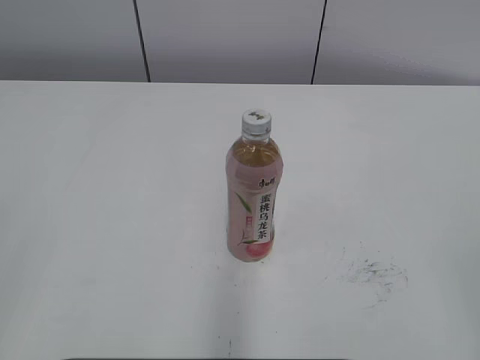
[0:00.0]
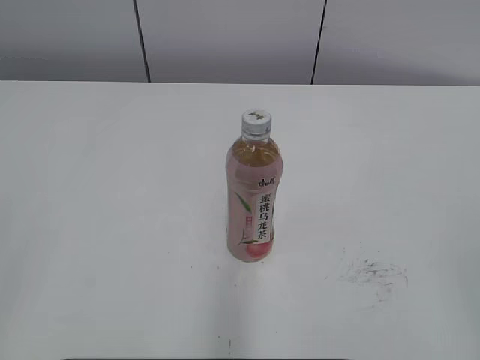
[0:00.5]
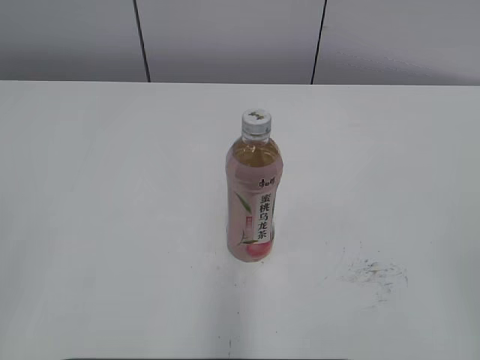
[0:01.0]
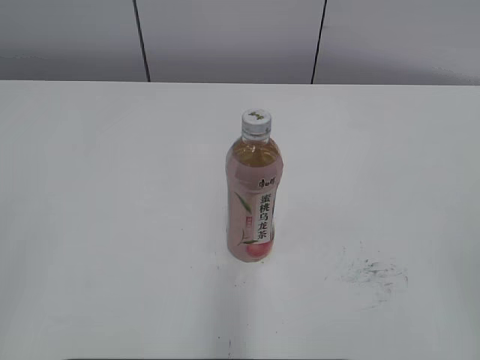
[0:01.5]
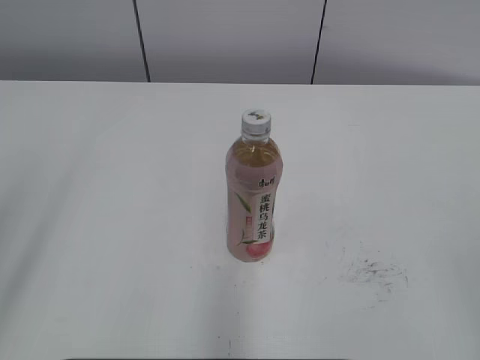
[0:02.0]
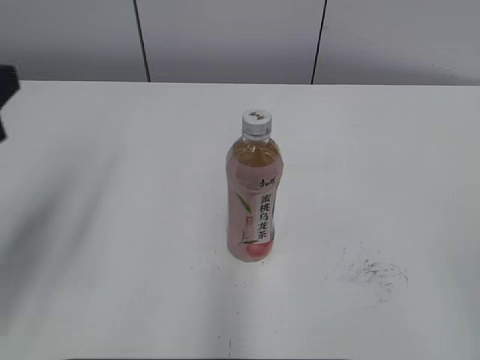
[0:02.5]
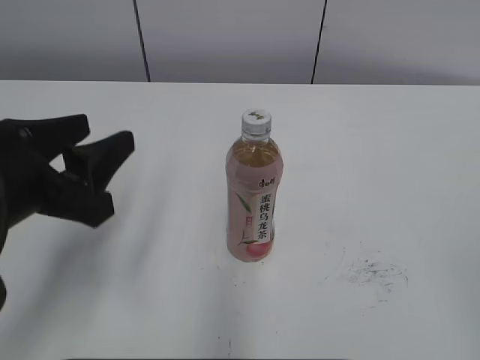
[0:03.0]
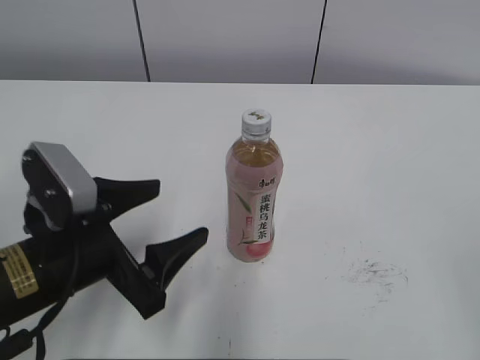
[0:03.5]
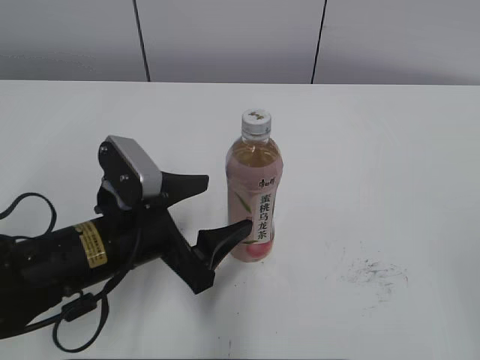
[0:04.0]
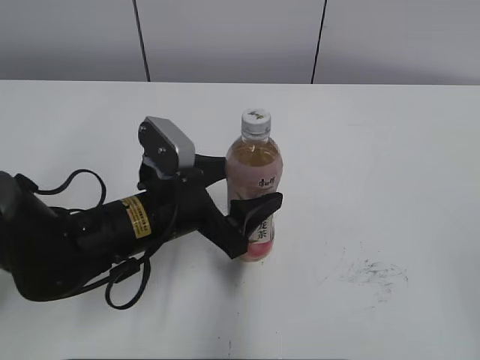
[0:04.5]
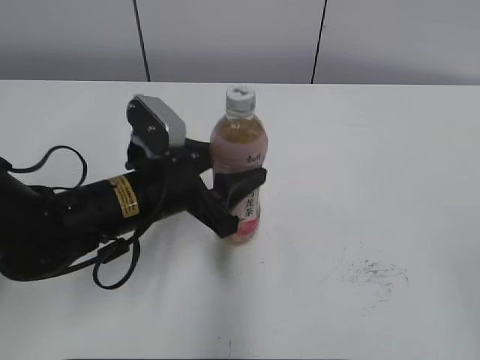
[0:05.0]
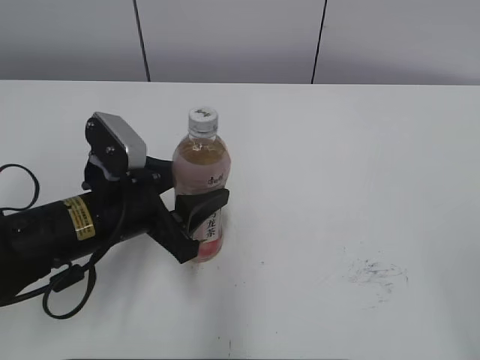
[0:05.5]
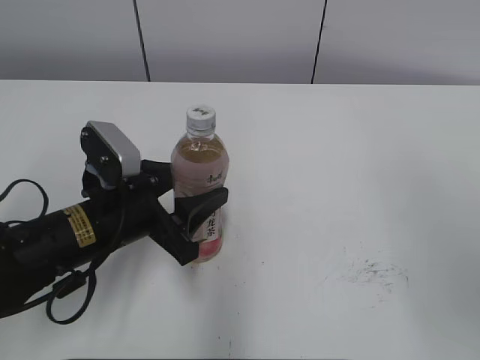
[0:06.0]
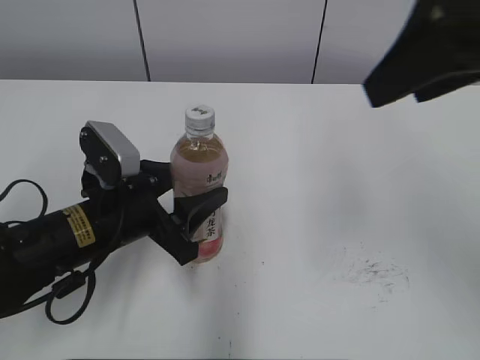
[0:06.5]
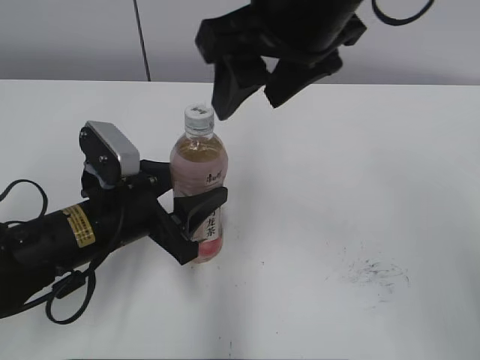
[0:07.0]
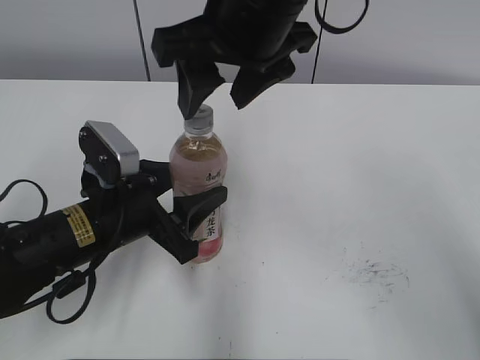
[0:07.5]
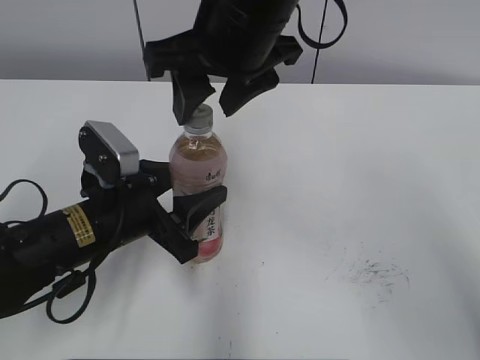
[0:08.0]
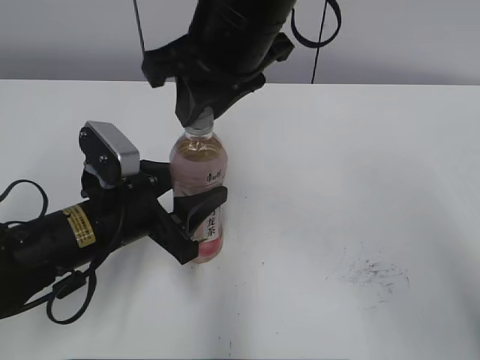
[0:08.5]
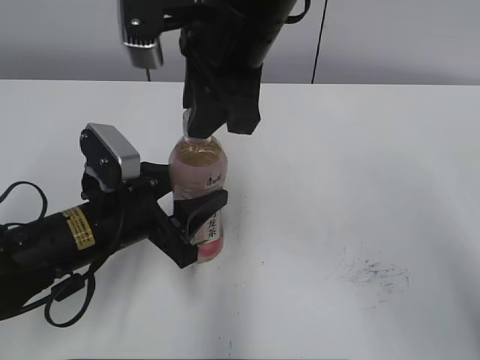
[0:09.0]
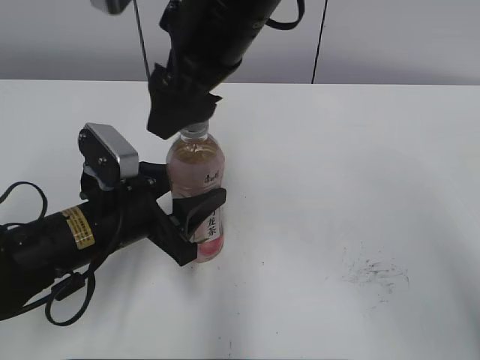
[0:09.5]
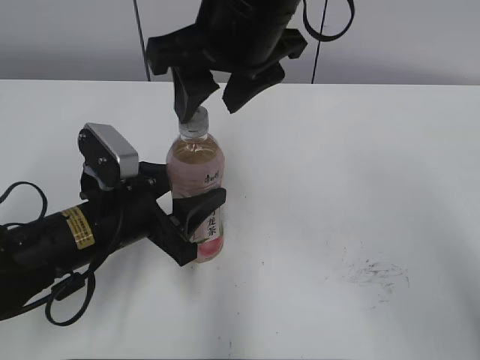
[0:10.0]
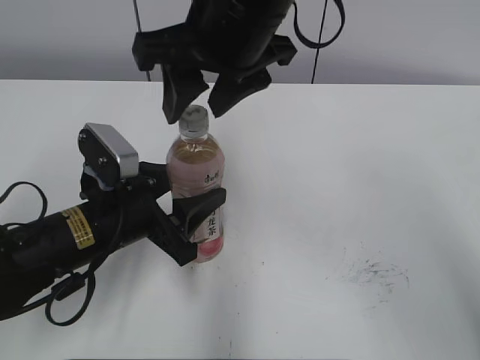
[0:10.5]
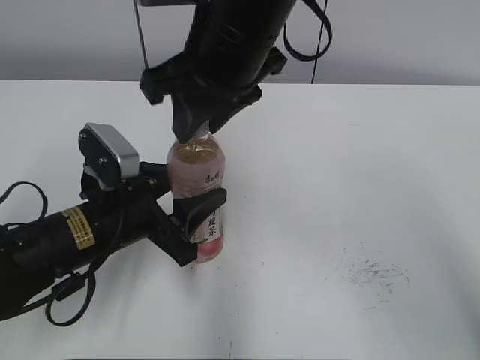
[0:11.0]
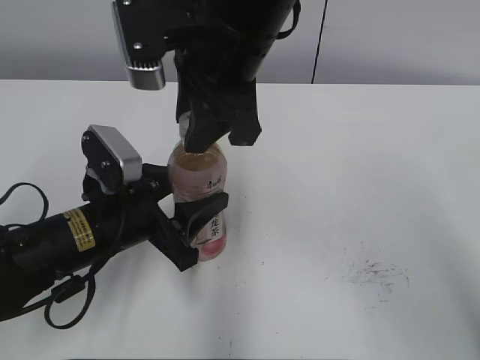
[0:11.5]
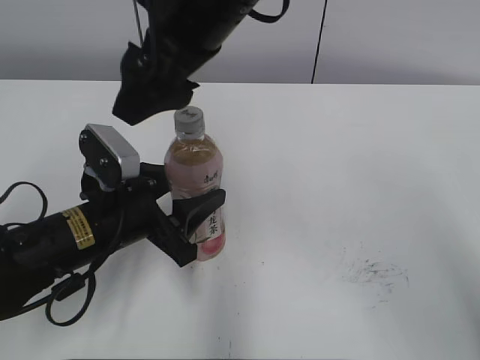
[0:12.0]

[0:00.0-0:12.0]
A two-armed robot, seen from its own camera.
Step, 0:00.0 to 0:04.5: Grab the Peach Oolong Tea with the left hand.
Step, 0:05.0 to 0:07.0: Move the Peach Oolong Tea from right to left.
0:02.0 to 0:04.0: The left gripper heads downward, to the right and forward, covering approximately 30 cm, and opens its fingers.
0:04.0 to 0:06.0: The right gripper moves forward and upward, about 10 cm; the left gripper closes up.
0:06.0 to 0:08.0: The right gripper travels to the left and forward by roughly 35 cm.
0:08.0 to 0:10.0: The right gripper closes and opens again.
0:10.0 to 0:12.0: The right gripper opens up.

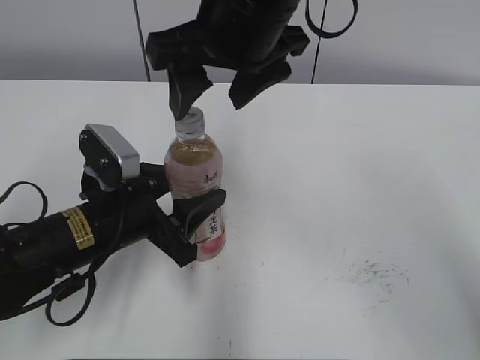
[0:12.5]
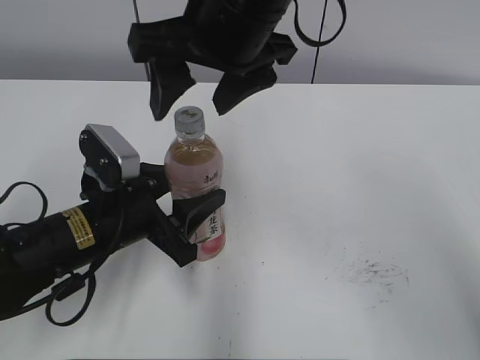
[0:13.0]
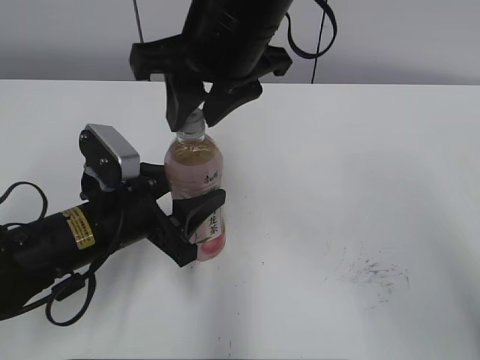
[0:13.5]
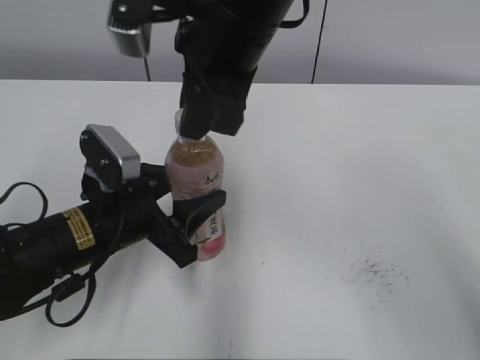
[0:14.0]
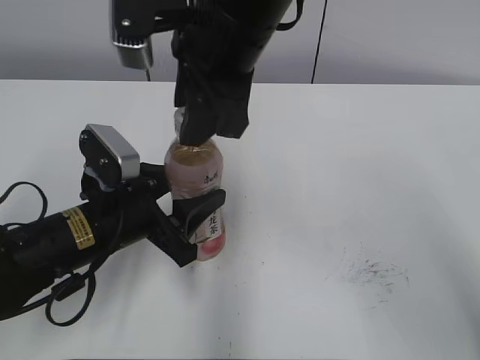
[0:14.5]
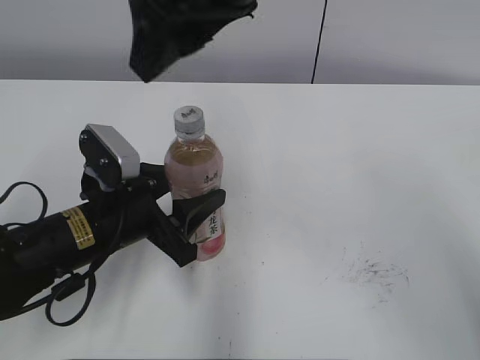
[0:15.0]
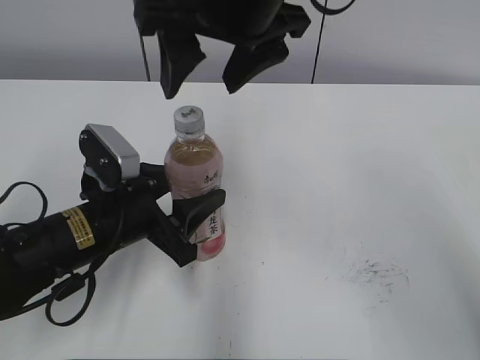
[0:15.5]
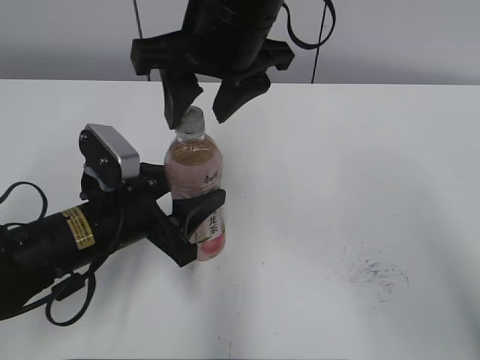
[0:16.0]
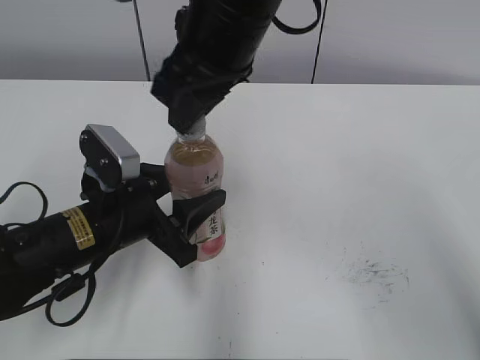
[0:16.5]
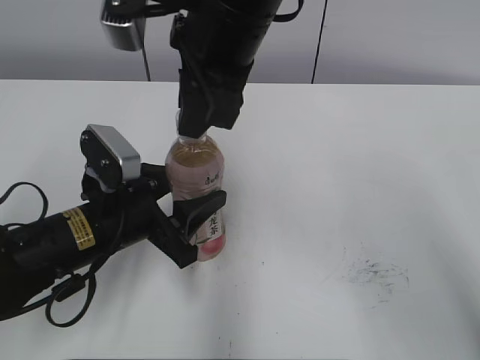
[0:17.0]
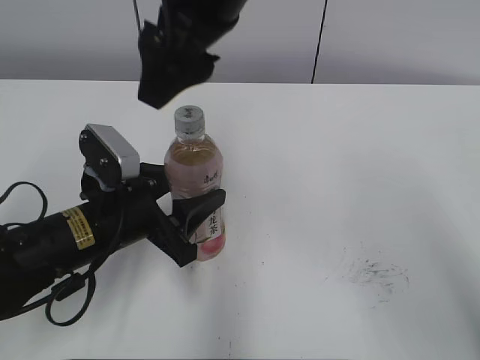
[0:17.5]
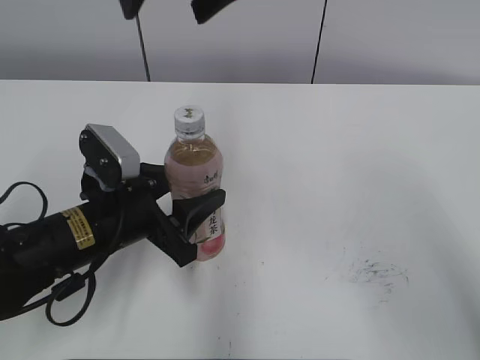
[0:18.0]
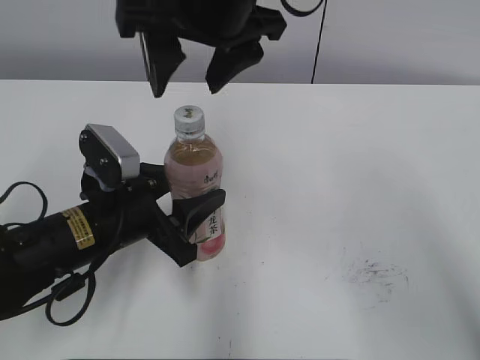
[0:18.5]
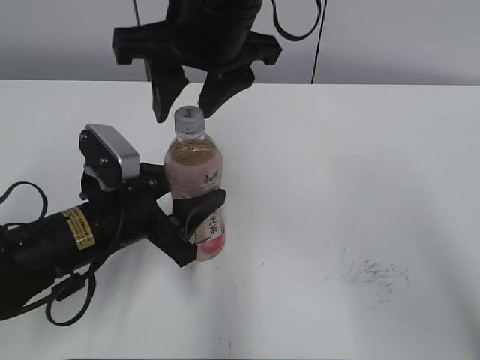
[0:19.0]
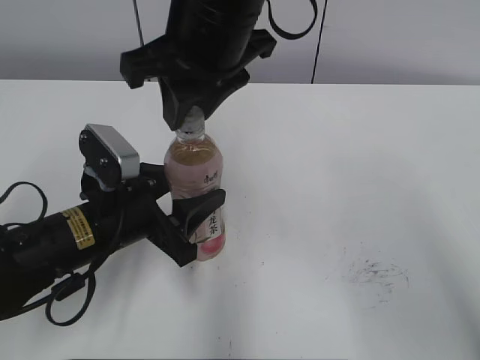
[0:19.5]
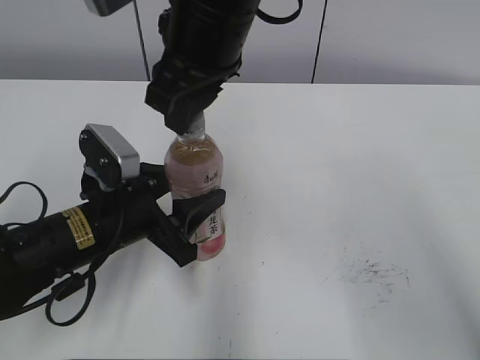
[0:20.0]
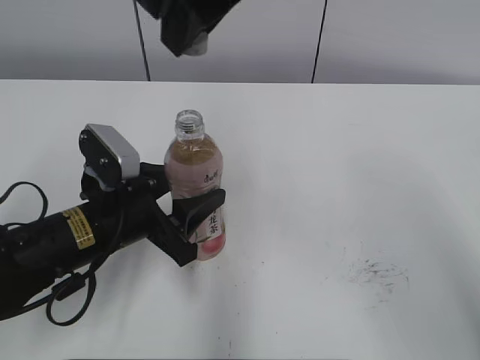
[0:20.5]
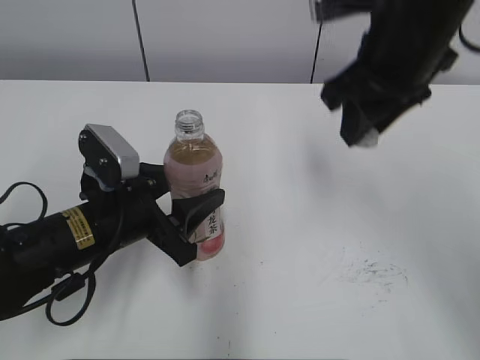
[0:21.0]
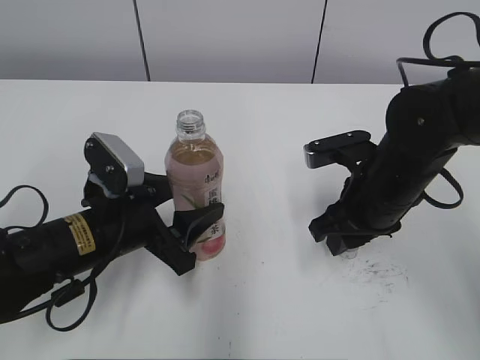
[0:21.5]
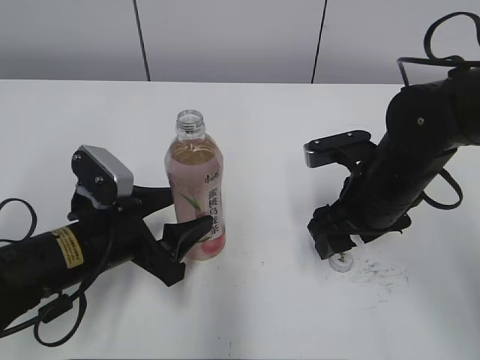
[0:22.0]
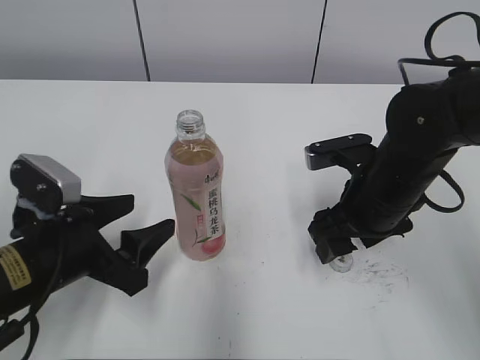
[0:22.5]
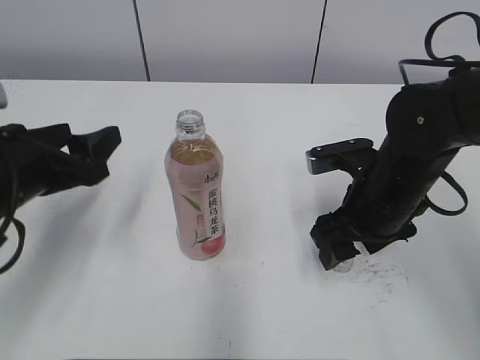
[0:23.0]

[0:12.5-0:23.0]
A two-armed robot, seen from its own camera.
Step, 0:20.5 to 0:21.5: Place the bottle cap on the right.
0:12.5 to 0:14.5: The right gripper closes up.
0:14.5 to 0:16.5: The right gripper closes up.
0:16.5 to 0:19.0: The right gripper moves about 10 cm upward and comes back, and opens its fingers.
0:19.0 to 0:21.0: The right gripper is displaced to the right by approximately 15 cm, and closes.
0:21.0 to 0:23.0: The left gripper is displaced to the left and upward by some 10 cm, and opens. The right gripper shifts roughly 15 cm downward, and opens its fingers.

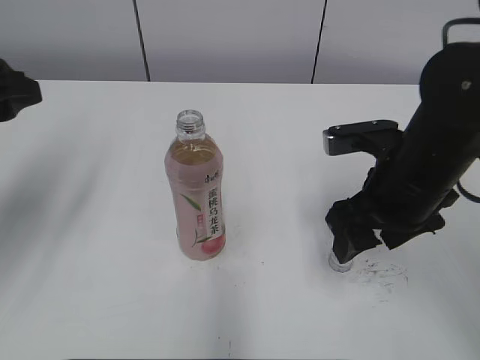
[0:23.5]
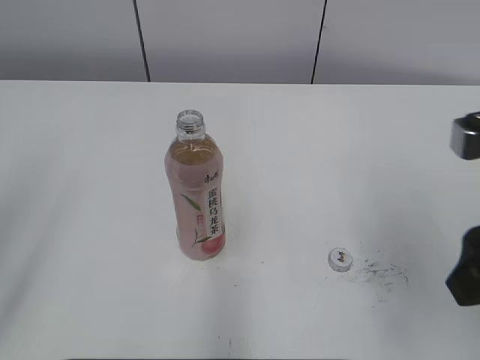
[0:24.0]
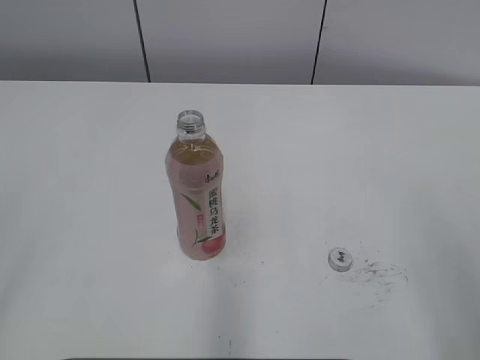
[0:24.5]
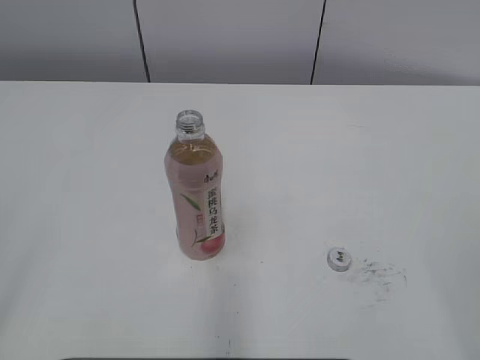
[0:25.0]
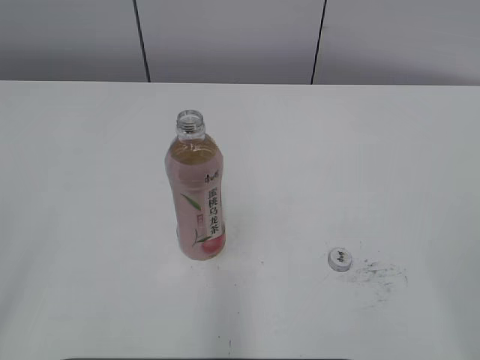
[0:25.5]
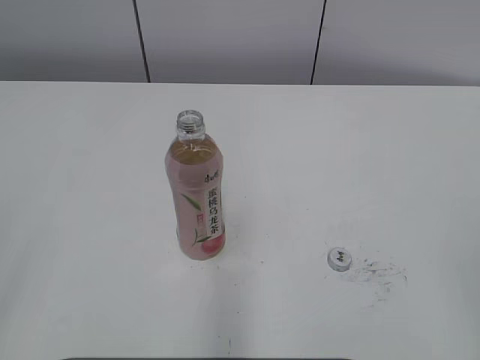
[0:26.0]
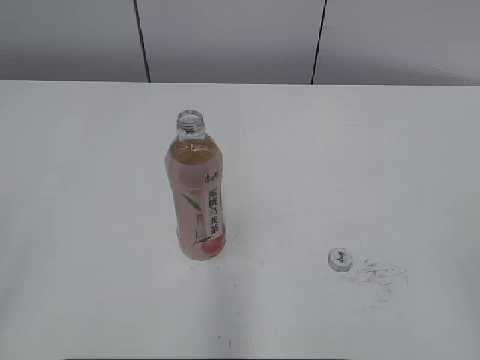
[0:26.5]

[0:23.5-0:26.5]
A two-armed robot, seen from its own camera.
0:23.5 to 0:25.0: The left gripper shifts some 25 cm backward, and closes. The right gripper is displaced backward and to the right by roughly 30 cm.
